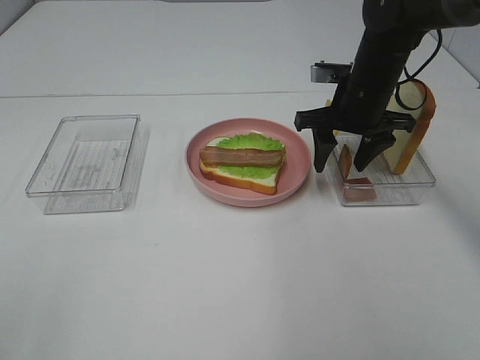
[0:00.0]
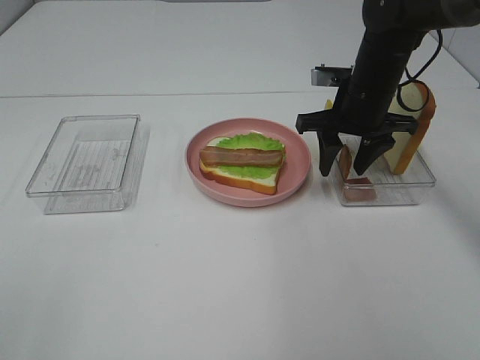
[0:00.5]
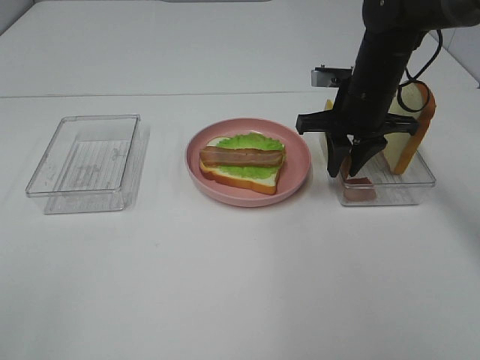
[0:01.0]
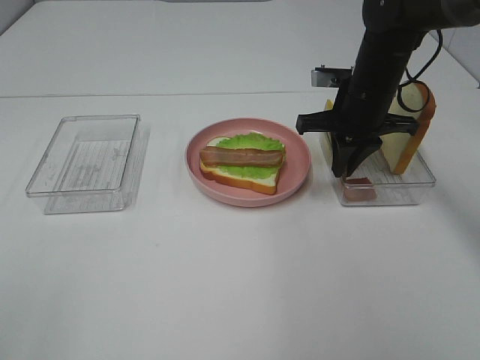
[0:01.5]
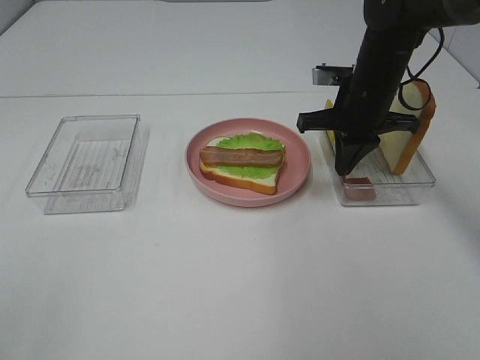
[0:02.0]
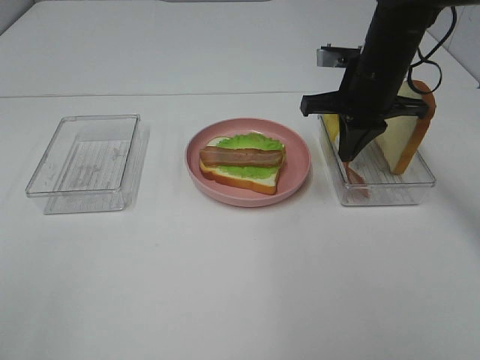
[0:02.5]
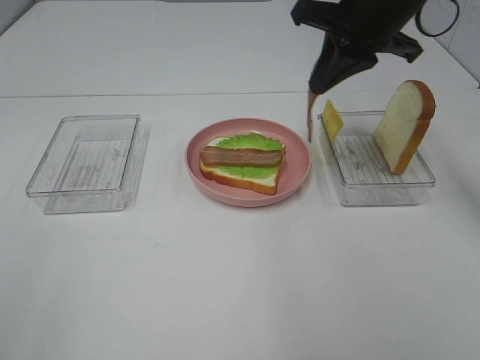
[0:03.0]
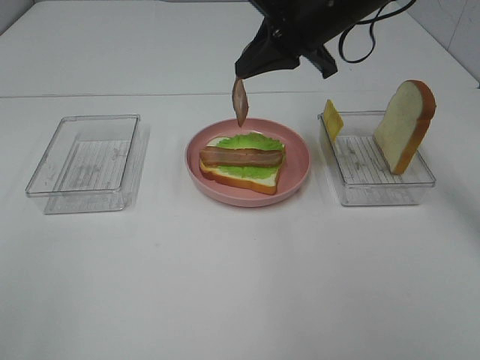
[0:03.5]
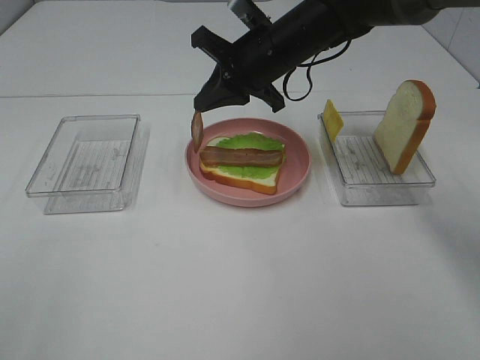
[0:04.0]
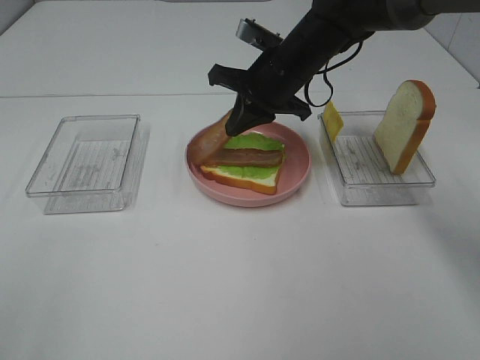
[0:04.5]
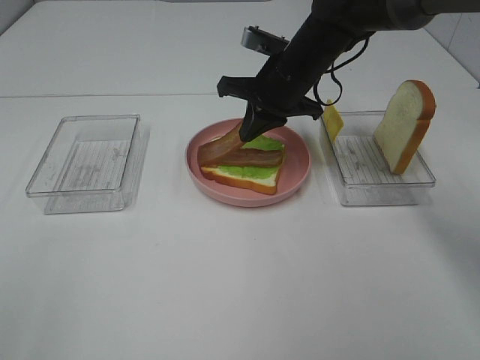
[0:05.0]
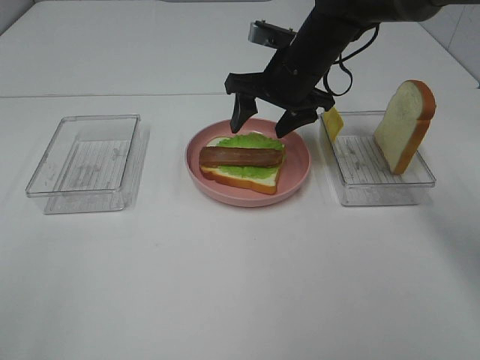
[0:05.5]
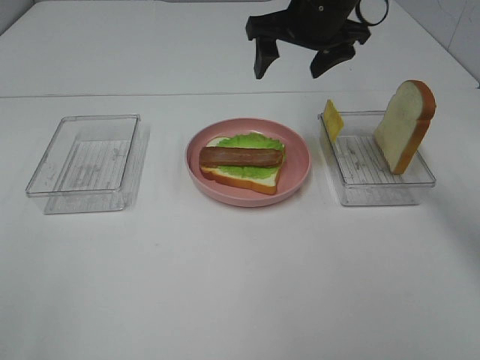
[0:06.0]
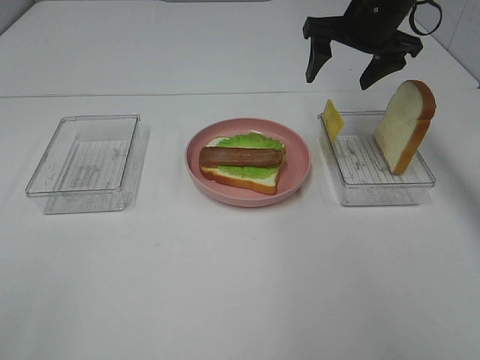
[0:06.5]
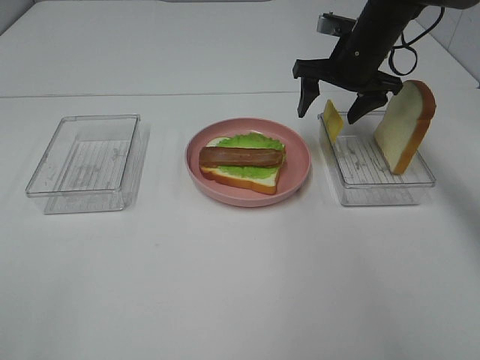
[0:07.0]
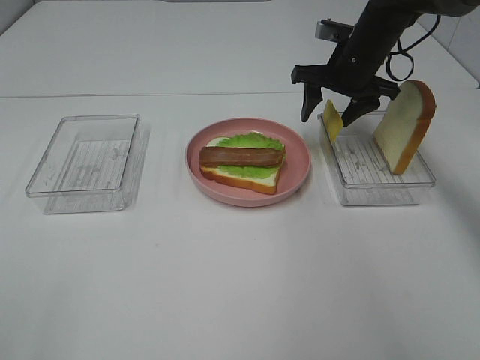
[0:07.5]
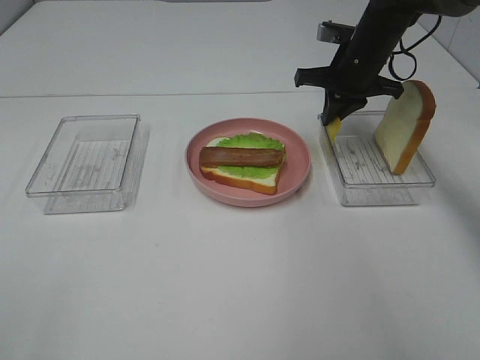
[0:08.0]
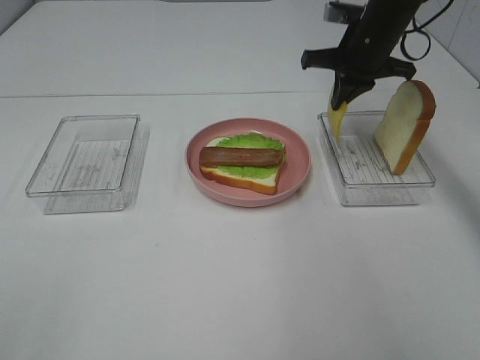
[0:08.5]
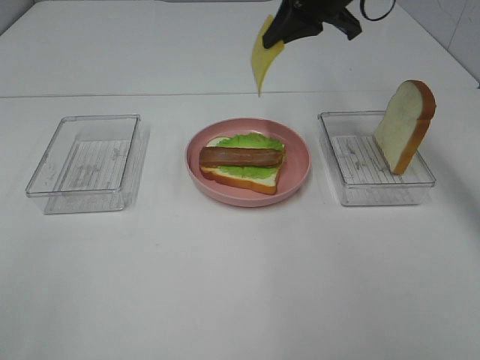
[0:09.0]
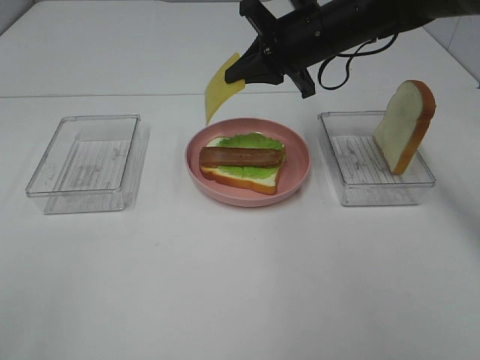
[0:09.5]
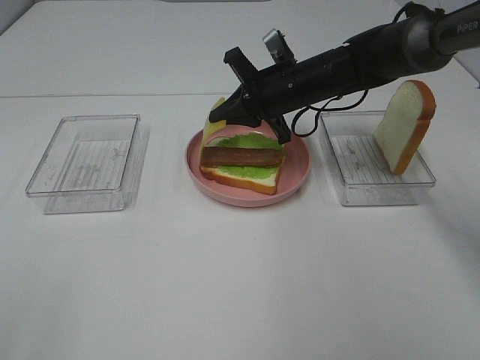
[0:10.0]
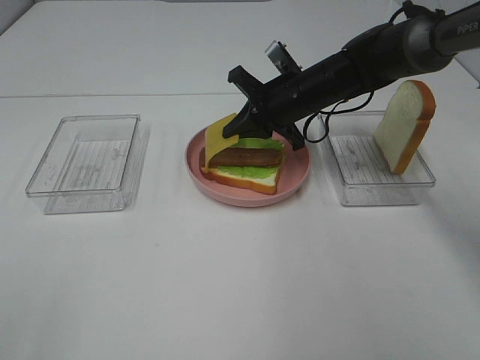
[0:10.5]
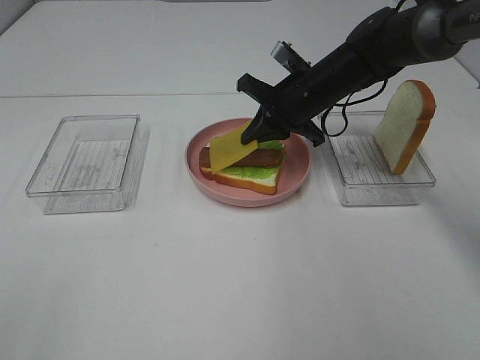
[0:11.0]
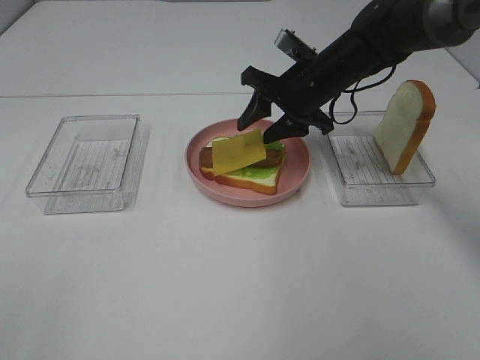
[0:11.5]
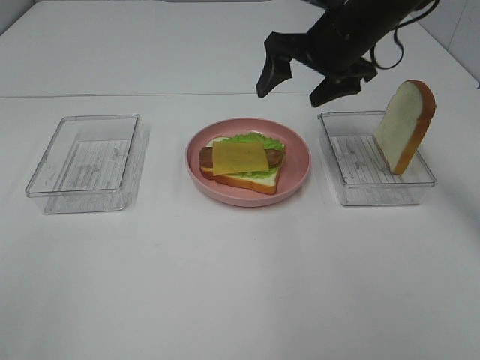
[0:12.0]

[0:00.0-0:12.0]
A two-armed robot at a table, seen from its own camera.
Task of the whole recording: Make sandwiches.
Step, 0:02.0 to 0:05.5: Right hand:place bacon on bacon.
Step, 0:06.0 to 0:08.0: Right hand:grab the cheese slice.
Step, 0:08.5 to 0:11.5: Right hand:place the cheese slice on top of the bacon.
0:00.0 to 0:02.0: The right gripper closes its fingers.
0:02.0 to 0:04.0: The right gripper is displaced to the left by approximately 10 cm, and travels upward and back again, some 10 cm each way.
0:04.0 to 0:06.0: The right gripper travels upward and to the right by some 10 cm, and opens its fingers.
0:06.0 to 0:08.0: The right gripper shifts about 10 cm downward and to the right, and closes.
0:08.0 to 0:10.0: The right gripper moves to the left, about 10 cm, and goes upward and returns, some 10 cm each way.
0:10.0 to 0:12.0: The right gripper heads upward, covering some 10 cm, and opens up.

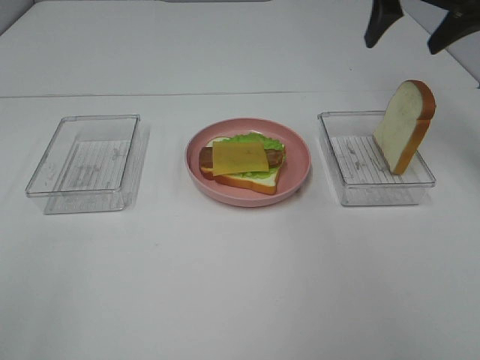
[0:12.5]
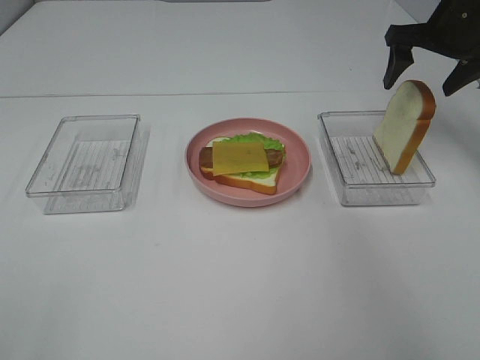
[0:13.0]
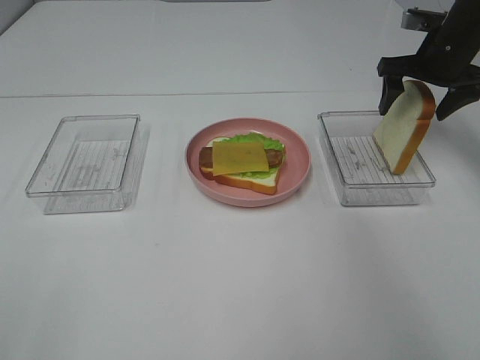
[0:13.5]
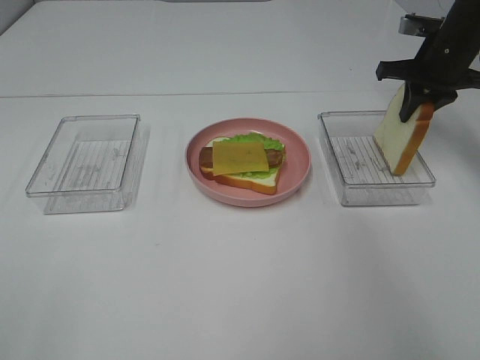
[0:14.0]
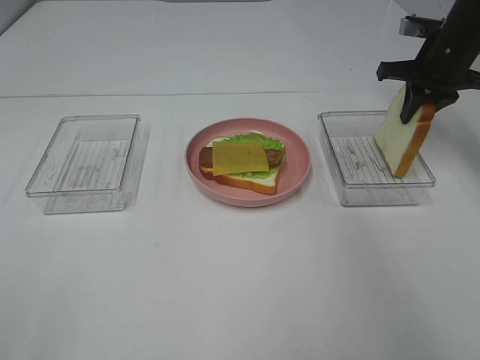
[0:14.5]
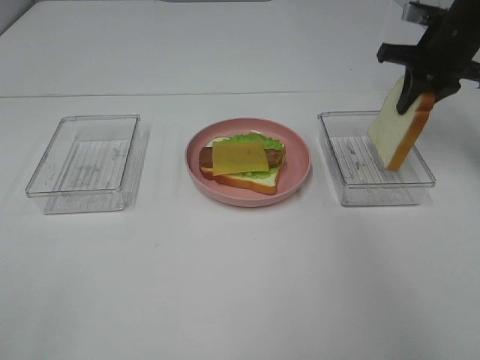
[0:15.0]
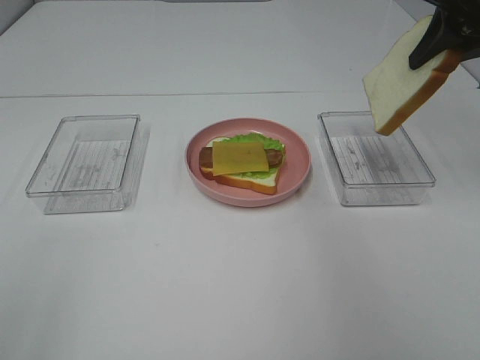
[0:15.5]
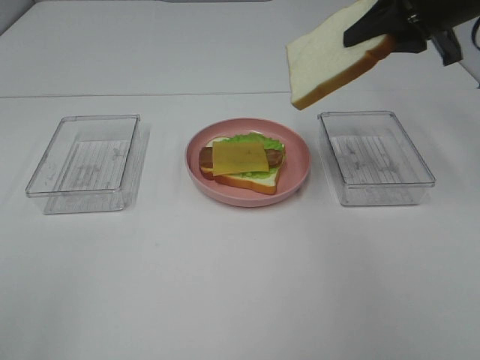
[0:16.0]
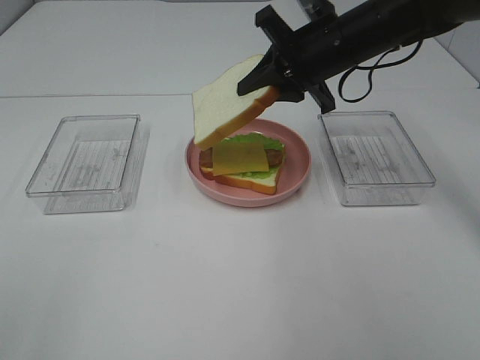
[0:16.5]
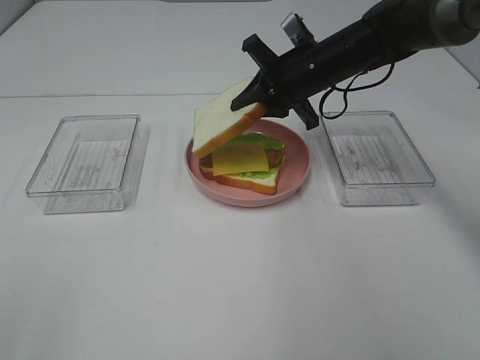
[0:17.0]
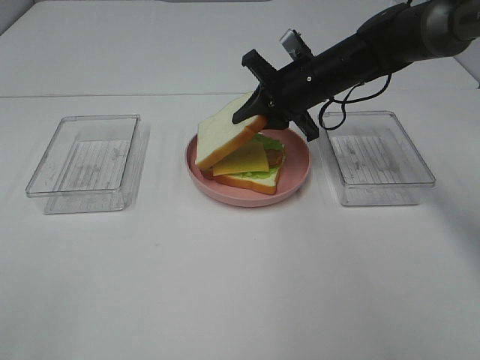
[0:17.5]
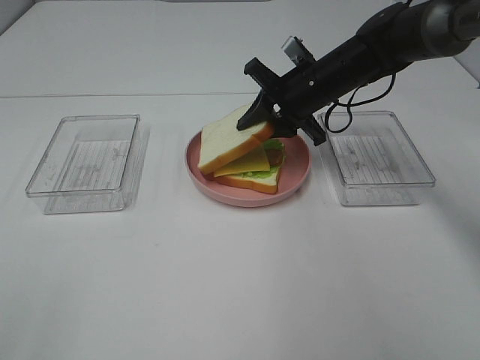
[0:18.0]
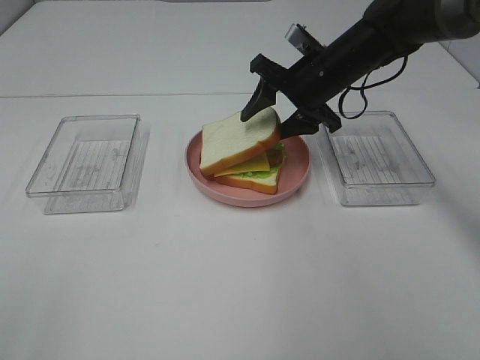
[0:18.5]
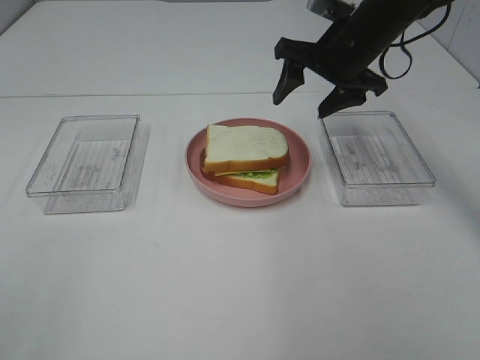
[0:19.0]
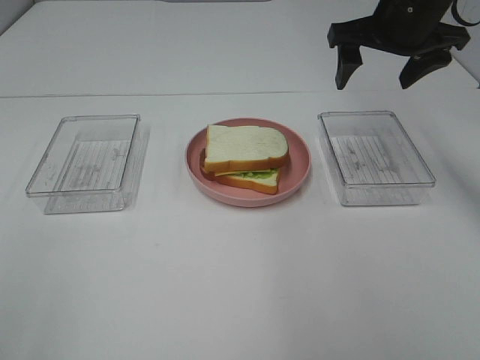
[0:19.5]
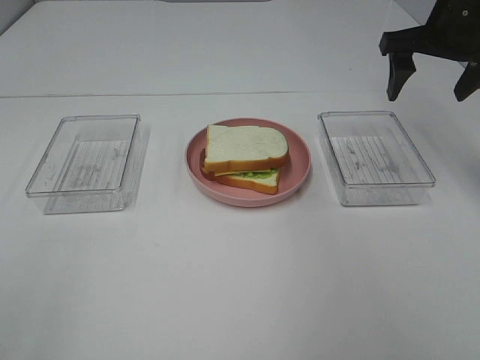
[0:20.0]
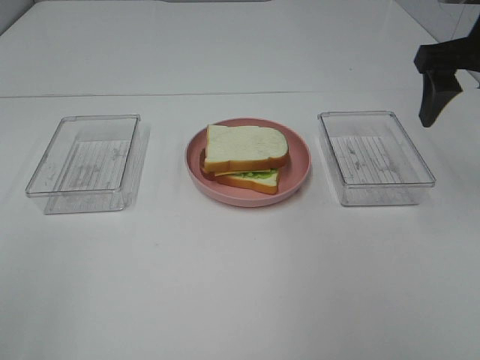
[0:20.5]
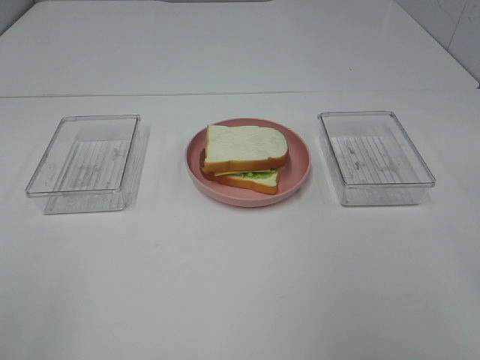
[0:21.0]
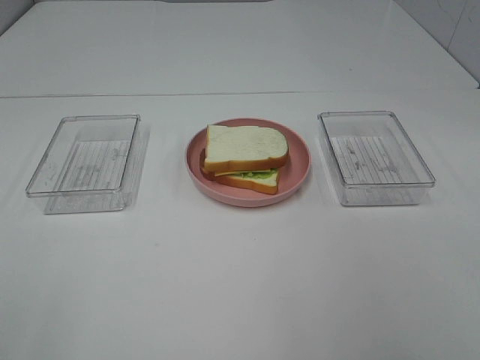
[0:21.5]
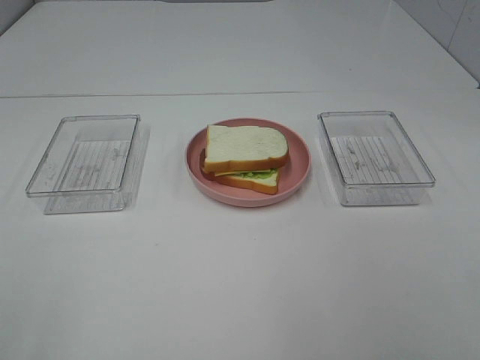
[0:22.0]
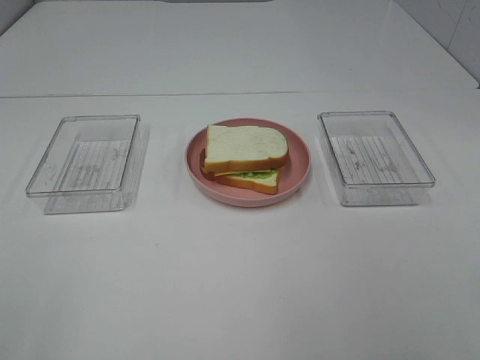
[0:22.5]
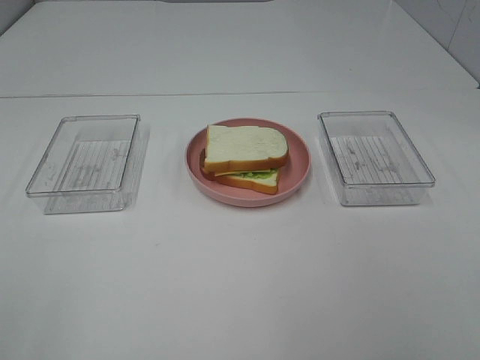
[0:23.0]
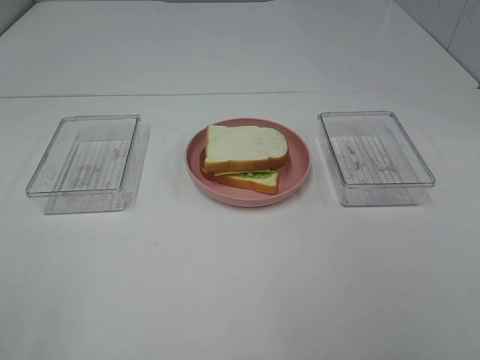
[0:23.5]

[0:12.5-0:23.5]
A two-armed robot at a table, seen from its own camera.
Task of the whole recording: Make sandwiches.
Step, 0:12.5 to 0:14.0: Right hand:grab the bread slice.
Step, 0:14.5 to 0:18.5: Right hand:place the bread slice on the cheese slice.
0:12.5 to 0:14.5: The right gripper goes some 10 cm downward, and closes up.
0:14.5 to 0:16.0: The right gripper travels backward, upward and to the left by approximately 15 cm.
0:16.0 to 0:18.0: The right gripper shifts about 20 cm downward, to the left and forward.
0:18.0 to 0:20.0: The right gripper goes roughly 20 cm to the right and upward, and opens its fingers.
0:20.0 to 0:21.5: The right gripper heads backward, covering about 35 cm.

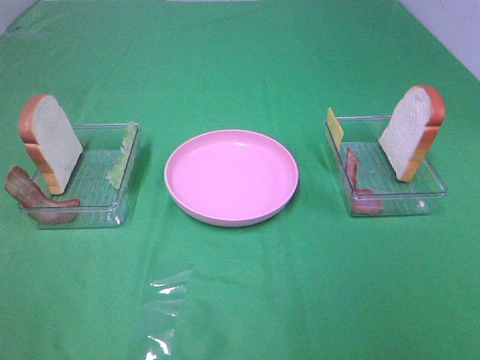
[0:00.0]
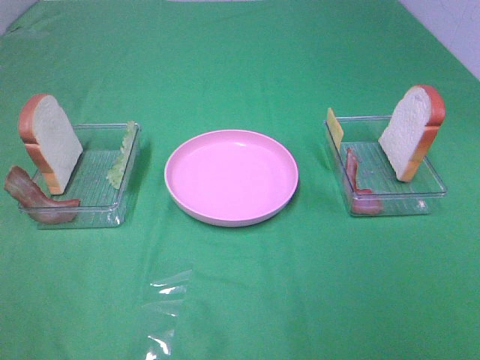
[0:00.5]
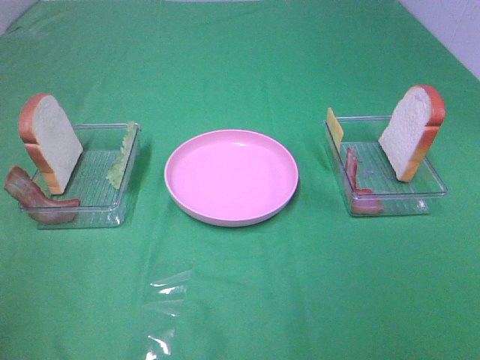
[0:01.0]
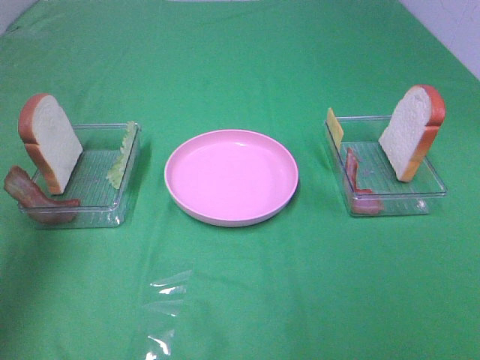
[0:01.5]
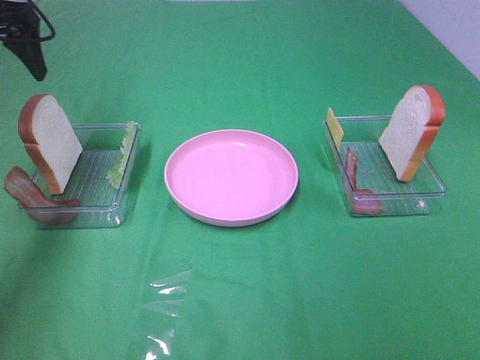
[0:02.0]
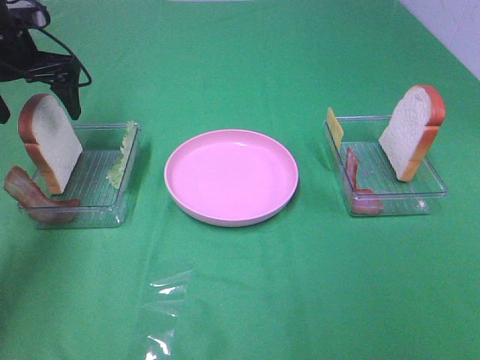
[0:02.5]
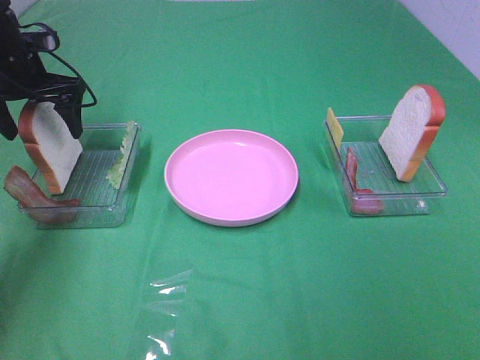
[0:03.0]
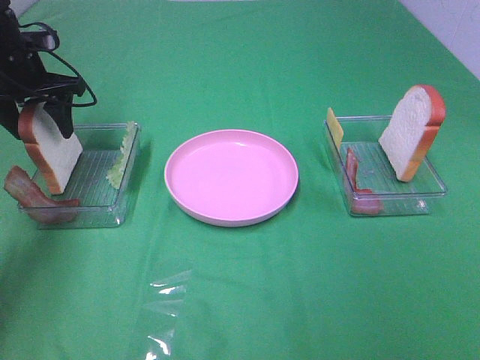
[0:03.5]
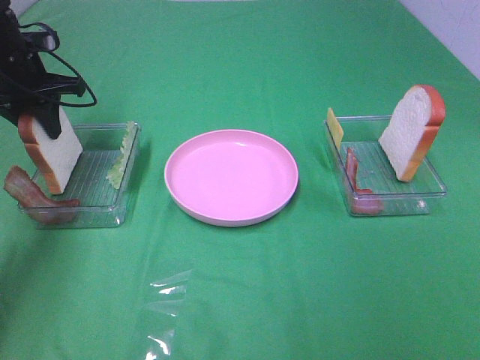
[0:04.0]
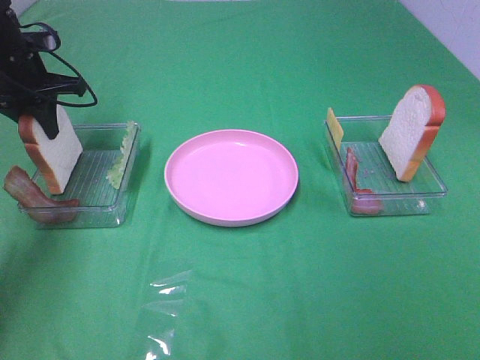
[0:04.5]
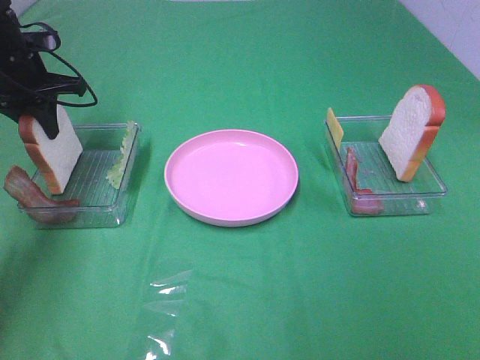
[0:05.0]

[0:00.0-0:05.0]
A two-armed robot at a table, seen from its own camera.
Task of the whole recording: Make sandwiches.
Step, 0:00.0 to 0:04.5: Left hand:grab the bread slice.
0:00.0 to 0:02.5: The left gripper moves forward, about 50 cm.
0:02.5 to 0:05.0: The left gripper closes.
